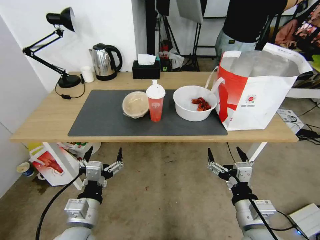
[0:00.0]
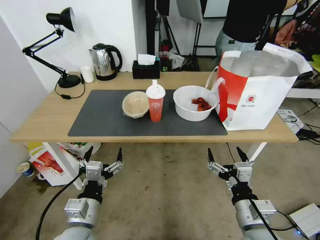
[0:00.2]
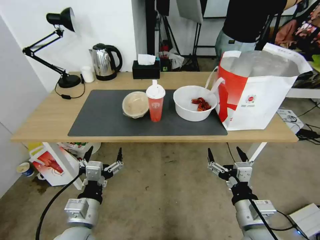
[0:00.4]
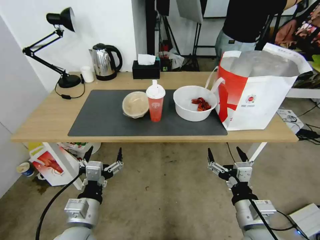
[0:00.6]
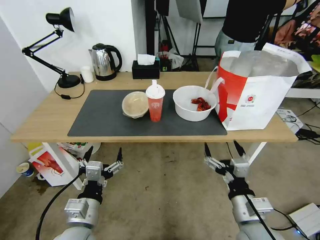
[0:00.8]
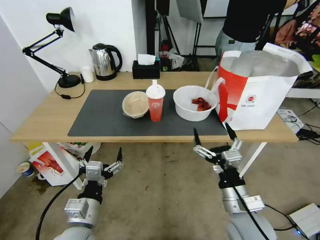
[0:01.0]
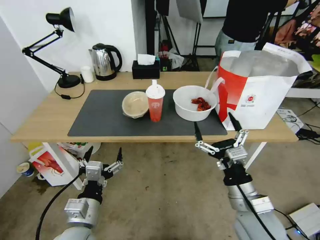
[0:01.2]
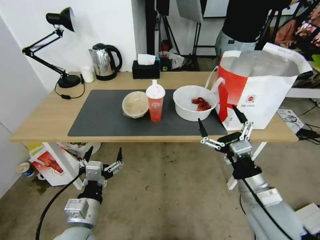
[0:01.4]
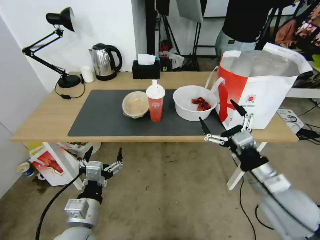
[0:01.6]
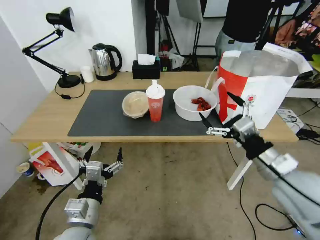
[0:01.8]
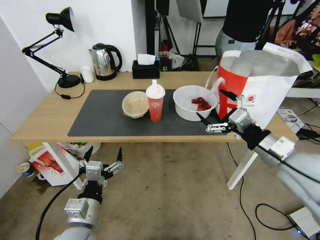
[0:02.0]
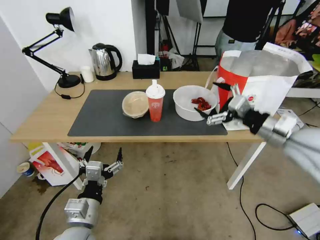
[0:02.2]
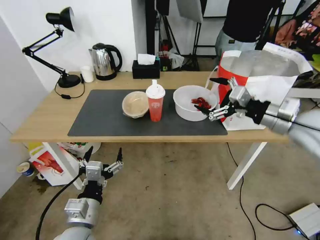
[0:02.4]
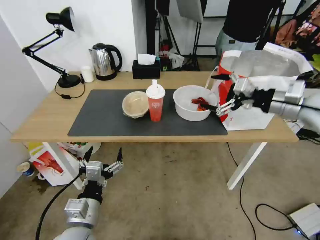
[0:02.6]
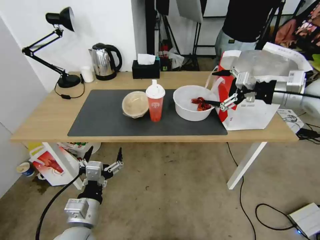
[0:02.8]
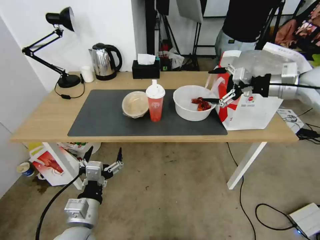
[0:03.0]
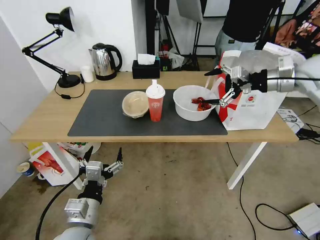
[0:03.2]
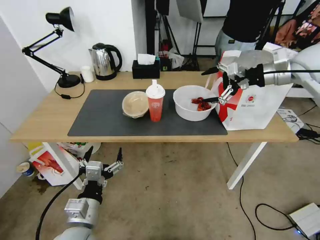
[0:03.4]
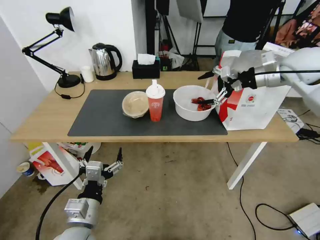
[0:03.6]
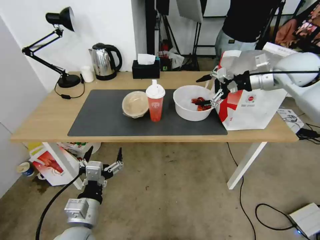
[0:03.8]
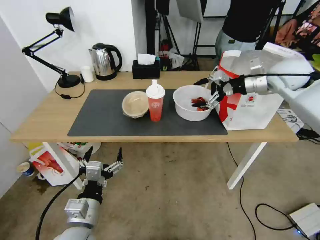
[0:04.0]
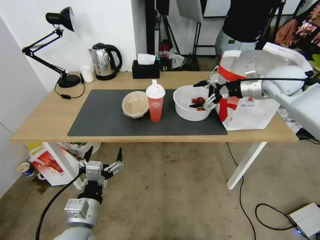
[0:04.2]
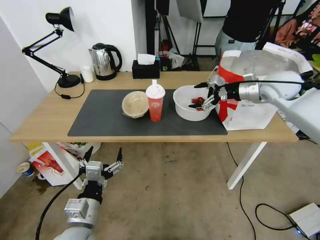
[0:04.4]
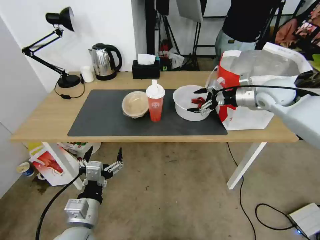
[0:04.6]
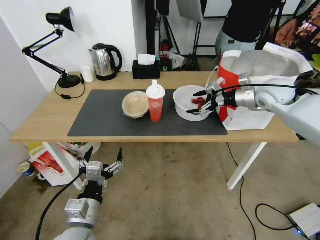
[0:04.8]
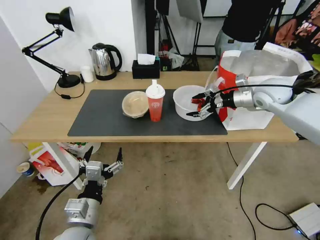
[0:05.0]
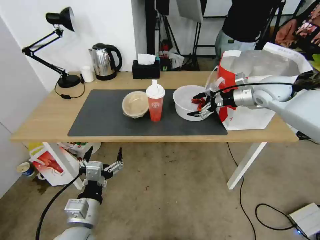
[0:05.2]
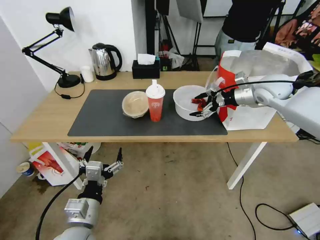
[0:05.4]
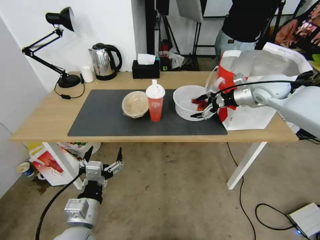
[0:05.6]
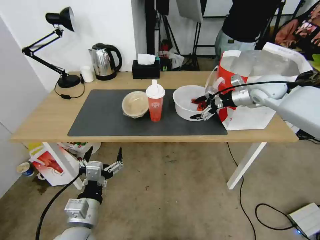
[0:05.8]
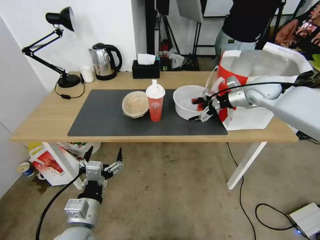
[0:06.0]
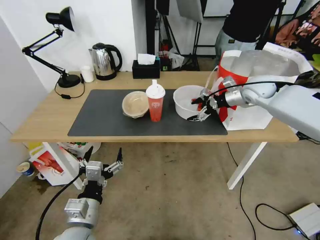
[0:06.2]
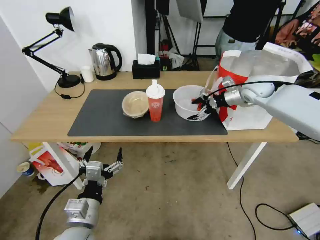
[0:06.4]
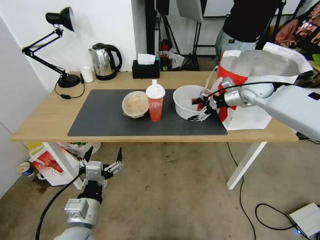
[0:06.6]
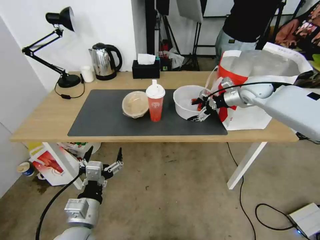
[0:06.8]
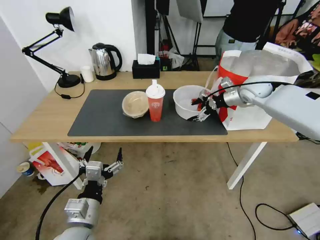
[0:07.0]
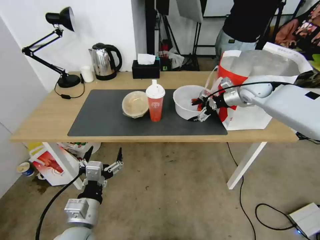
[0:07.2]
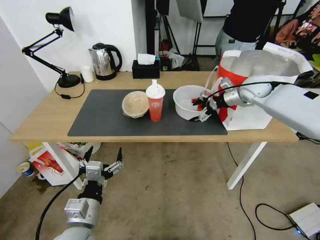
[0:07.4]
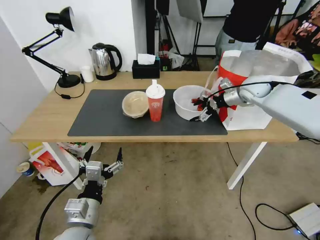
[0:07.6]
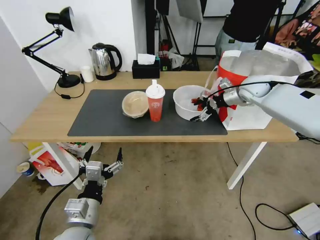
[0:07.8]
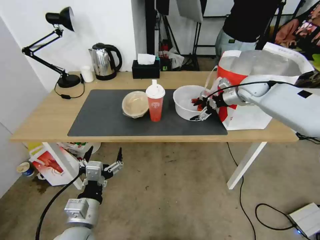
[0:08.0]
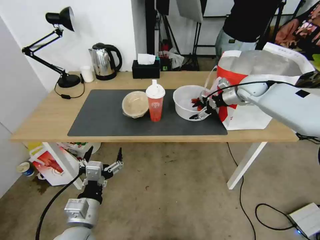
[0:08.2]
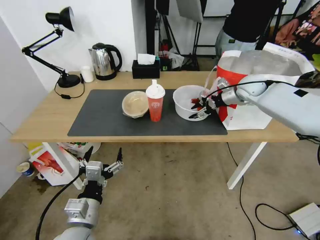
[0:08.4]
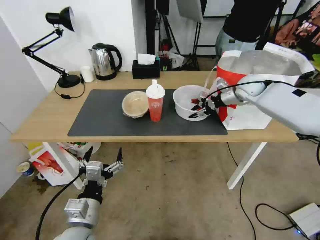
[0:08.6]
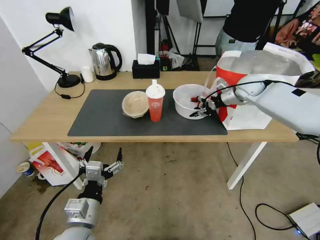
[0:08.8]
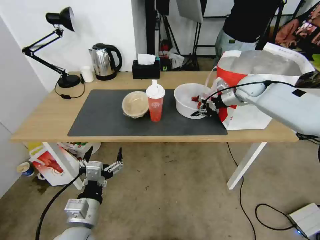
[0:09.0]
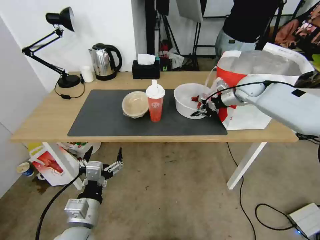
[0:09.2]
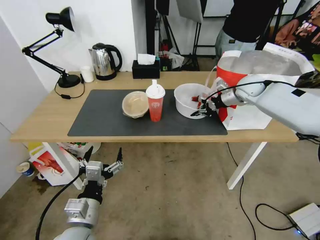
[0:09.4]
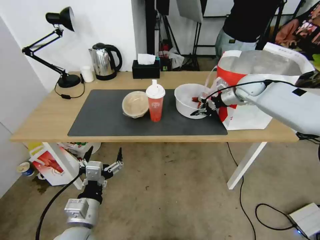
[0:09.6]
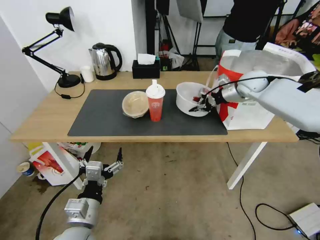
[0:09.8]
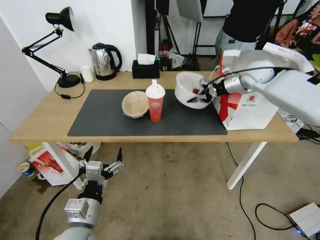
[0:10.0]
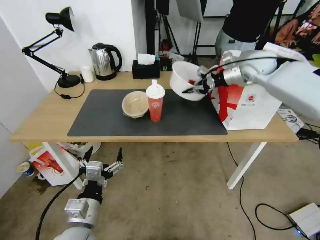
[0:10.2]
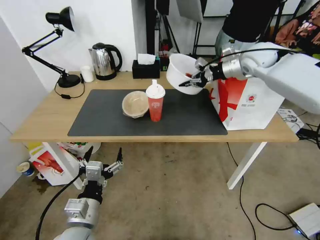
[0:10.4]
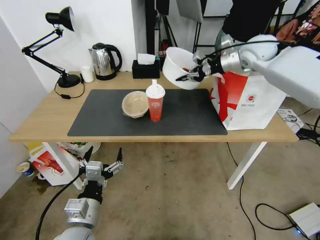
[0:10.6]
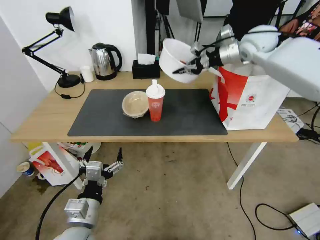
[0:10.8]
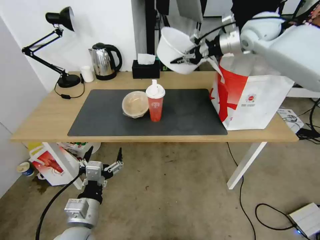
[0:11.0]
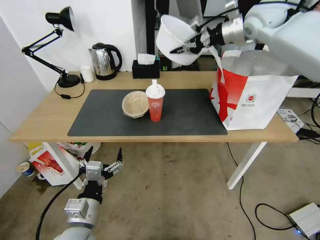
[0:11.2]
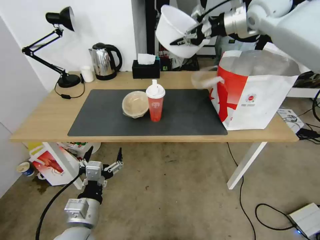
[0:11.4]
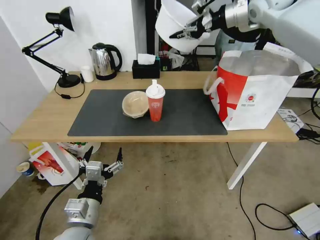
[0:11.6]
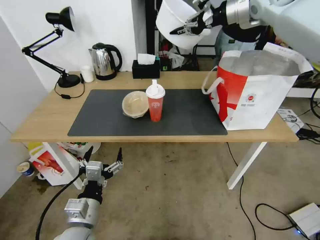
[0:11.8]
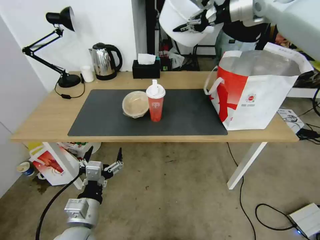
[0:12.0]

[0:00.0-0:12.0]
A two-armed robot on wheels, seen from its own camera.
Task of the whole recording: Pick up the trash from the table and place it into the takeout bag.
0:01.6 to 0:03.0: The right gripper travels forward, upward and to the right by approximately 30 cm.
0:03.0 to 0:04.4: The right gripper travels forward and downward by about 10 cm.
0:04.4 to 0:06.0: The right gripper changes place by roughly 5 cm.
0:06.0 to 0:07.6: The grippers move only a little.
0:07.6 to 0:09.0: The right gripper closes.
0:09.0 to 0:10.4: The right gripper is displaced upward by some 10 cm.
0:10.4 to 0:12.0: The right gripper shifts some 15 cm upward.

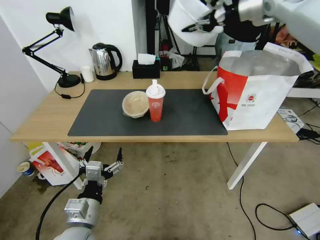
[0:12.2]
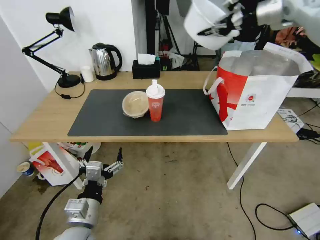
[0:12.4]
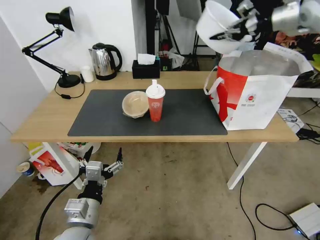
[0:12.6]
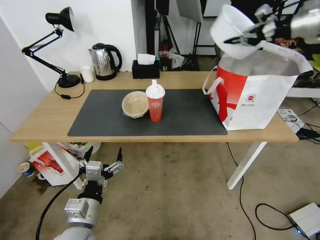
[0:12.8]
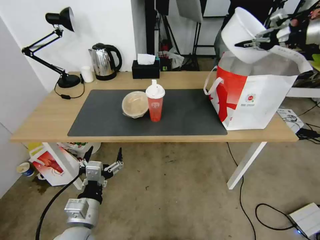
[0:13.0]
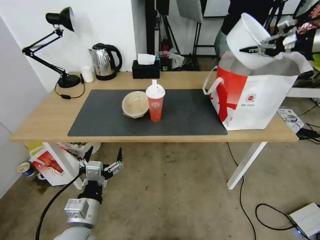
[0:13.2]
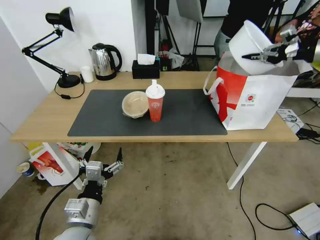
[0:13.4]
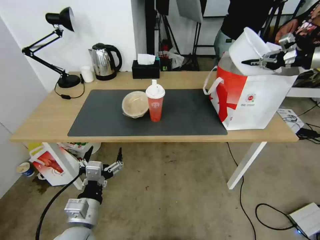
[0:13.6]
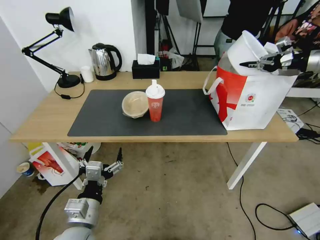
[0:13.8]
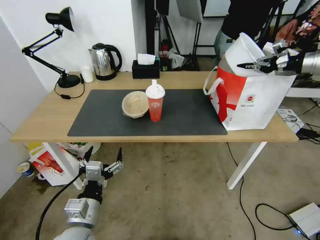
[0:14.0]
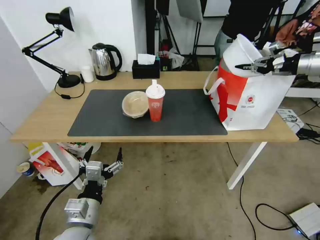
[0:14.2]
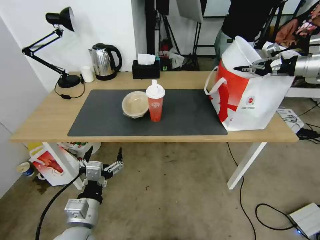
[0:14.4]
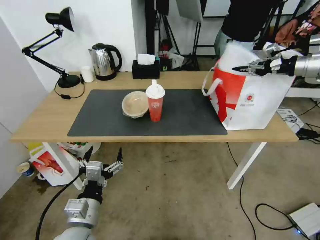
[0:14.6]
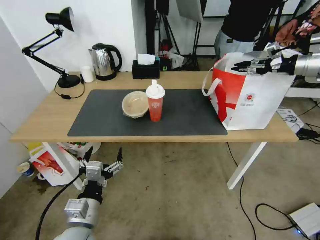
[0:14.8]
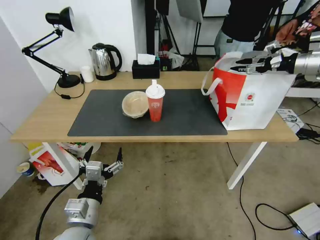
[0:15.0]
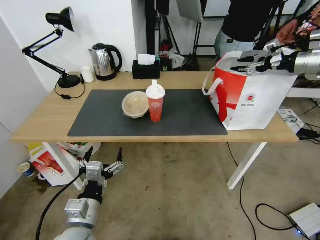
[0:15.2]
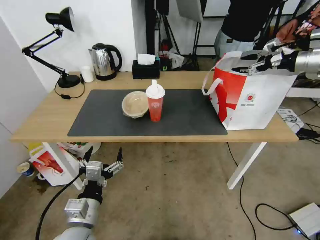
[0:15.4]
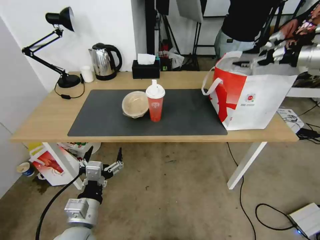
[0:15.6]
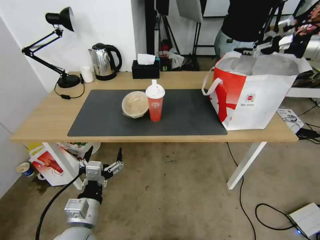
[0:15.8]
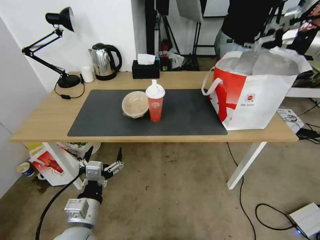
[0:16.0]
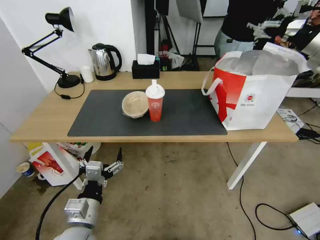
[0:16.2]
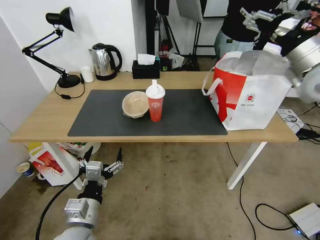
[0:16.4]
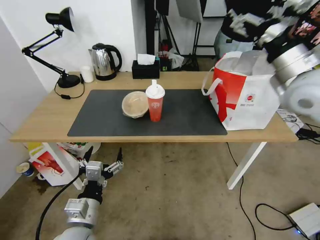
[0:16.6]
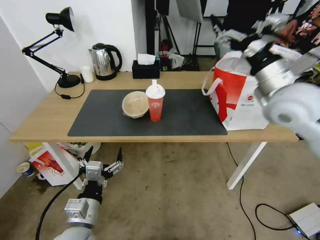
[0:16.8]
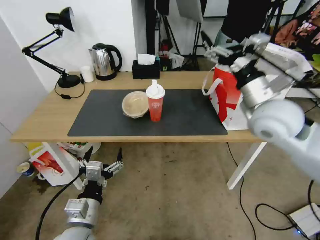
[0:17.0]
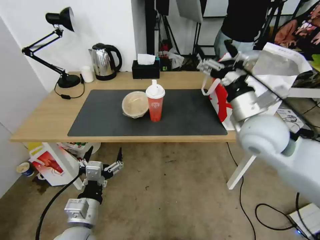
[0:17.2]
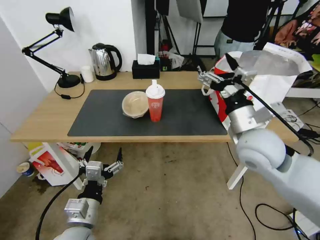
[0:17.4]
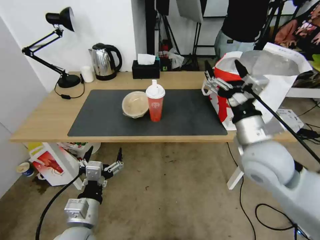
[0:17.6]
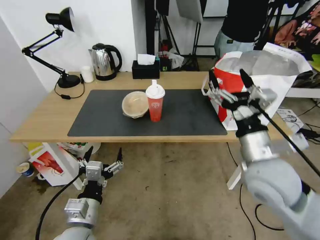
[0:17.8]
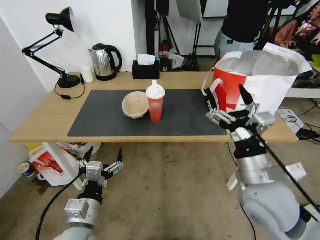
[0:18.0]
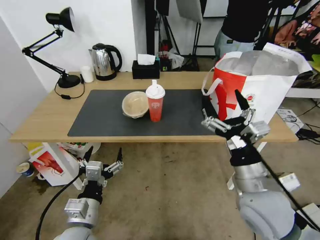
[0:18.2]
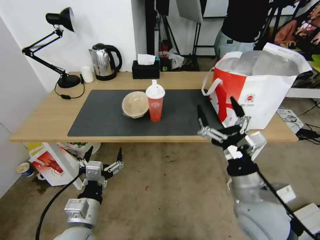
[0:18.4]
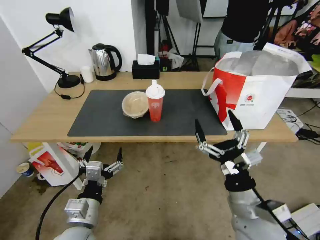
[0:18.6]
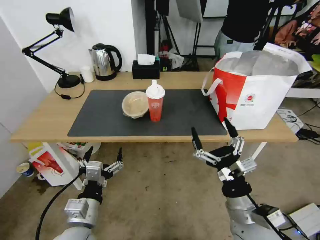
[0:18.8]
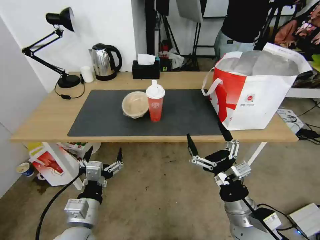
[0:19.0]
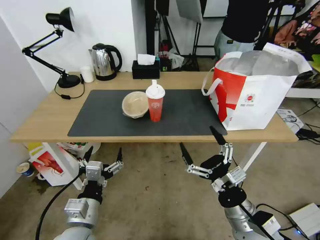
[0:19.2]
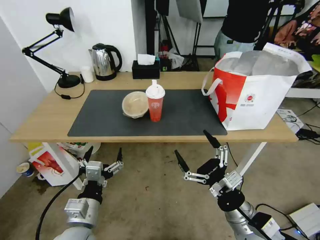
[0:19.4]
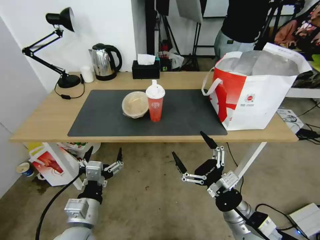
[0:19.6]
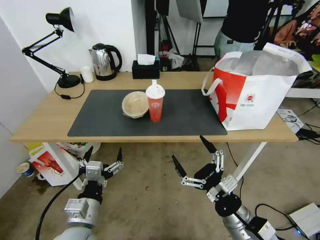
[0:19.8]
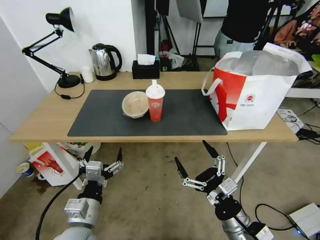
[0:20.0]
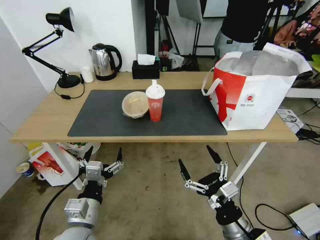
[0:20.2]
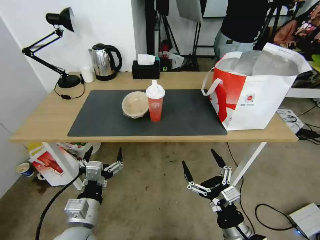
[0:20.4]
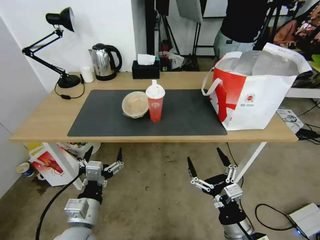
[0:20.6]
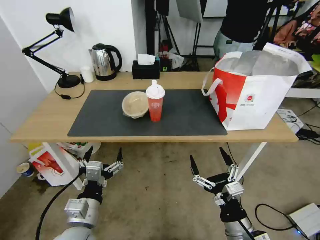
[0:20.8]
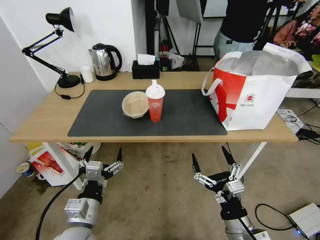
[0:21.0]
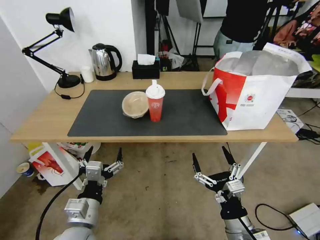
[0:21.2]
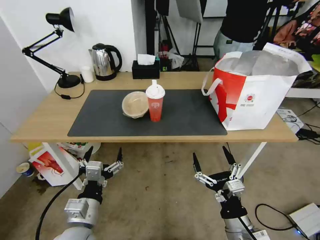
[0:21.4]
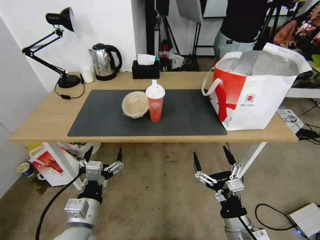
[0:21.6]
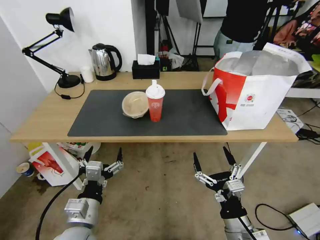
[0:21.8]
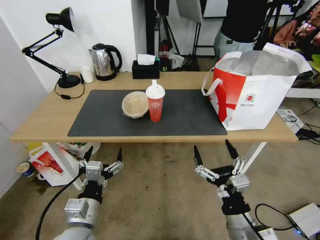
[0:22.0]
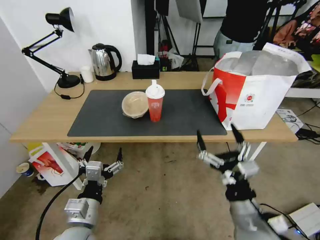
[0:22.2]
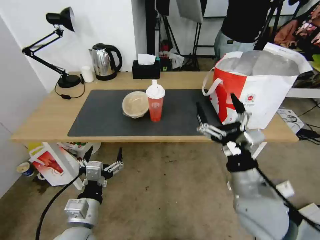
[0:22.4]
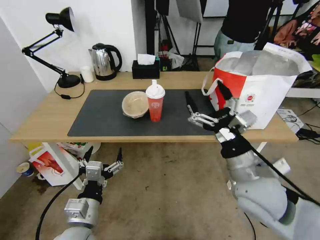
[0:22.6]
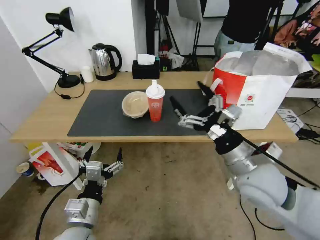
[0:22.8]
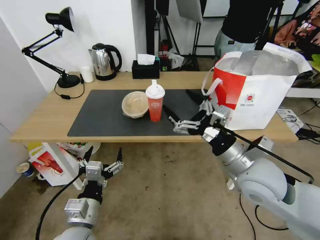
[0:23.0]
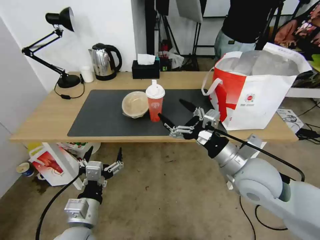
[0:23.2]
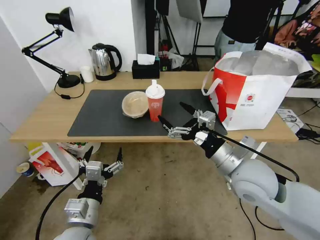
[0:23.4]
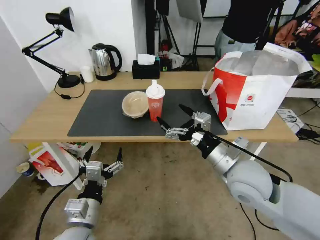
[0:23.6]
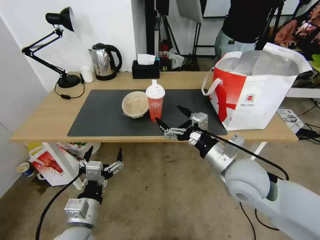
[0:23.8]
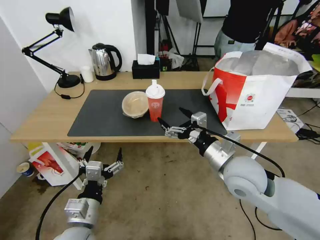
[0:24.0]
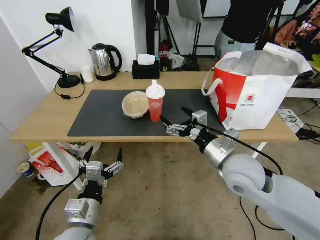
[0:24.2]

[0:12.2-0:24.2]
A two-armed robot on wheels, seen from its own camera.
Task of the whole recording: Pick up the trash from the table and place it into the takeout bag.
0:12.2 to 0:13.8: The right gripper travels to the right, downward and backward by approximately 25 cm.
0:13.8 to 0:15.2: The right gripper opens.
0:15.2 to 0:16.6: The right gripper heads to the left and backward, covering approximately 25 cm.
0:16.6 to 0:18.2: The right gripper travels downward, backward and to the left by about 25 cm.
0:18.2 to 0:19.8: The right gripper travels downward and backward by about 10 cm.
0:21.2 to 0:22.6: The right gripper heads upward and forward, covering roughly 15 cm.
0:22.6 to 0:24.2: The right gripper travels forward by roughly 5 cm.
